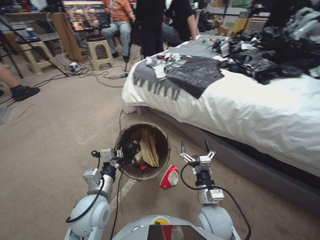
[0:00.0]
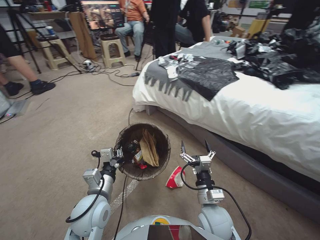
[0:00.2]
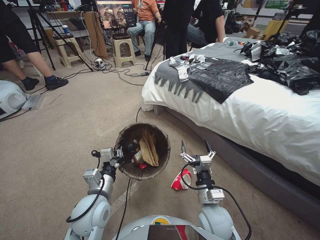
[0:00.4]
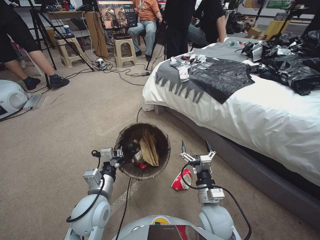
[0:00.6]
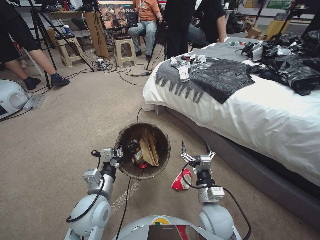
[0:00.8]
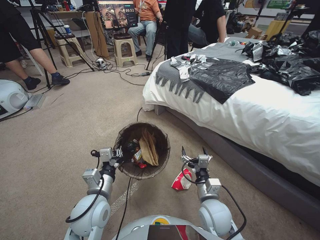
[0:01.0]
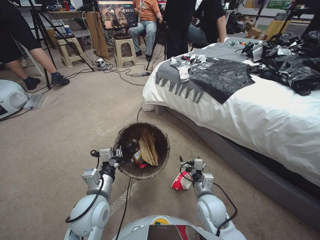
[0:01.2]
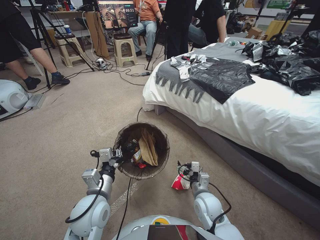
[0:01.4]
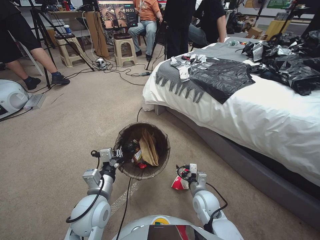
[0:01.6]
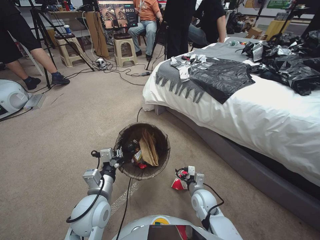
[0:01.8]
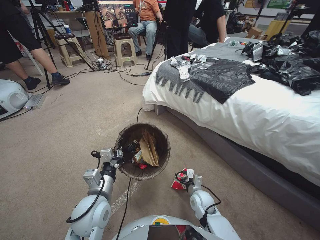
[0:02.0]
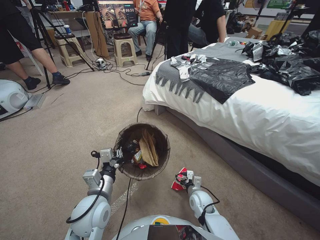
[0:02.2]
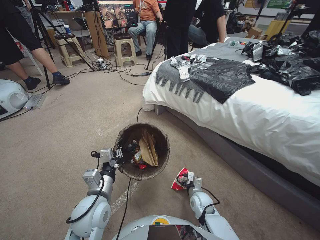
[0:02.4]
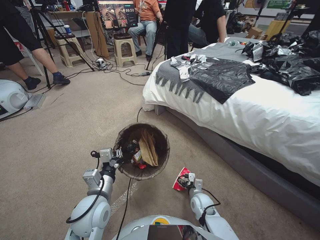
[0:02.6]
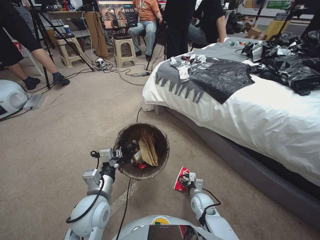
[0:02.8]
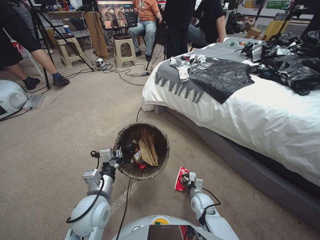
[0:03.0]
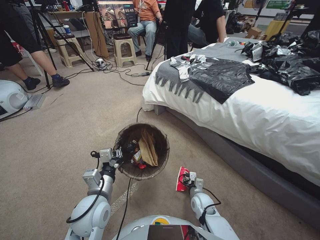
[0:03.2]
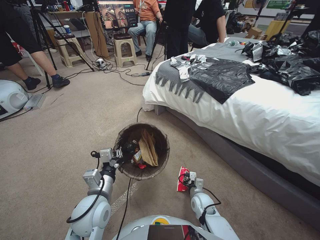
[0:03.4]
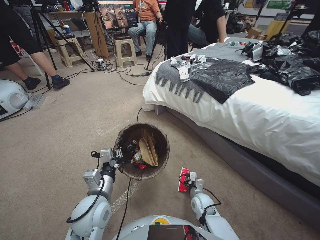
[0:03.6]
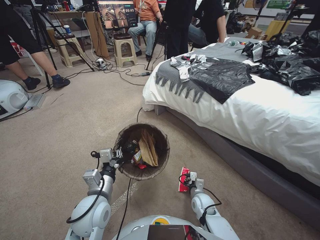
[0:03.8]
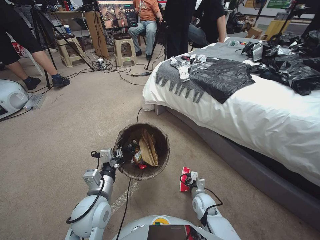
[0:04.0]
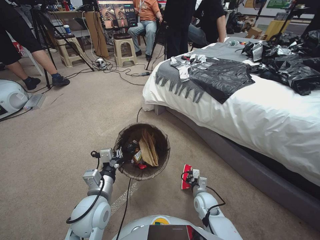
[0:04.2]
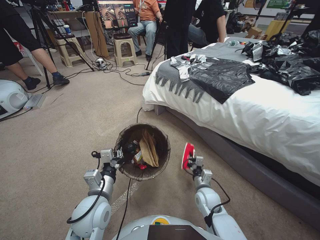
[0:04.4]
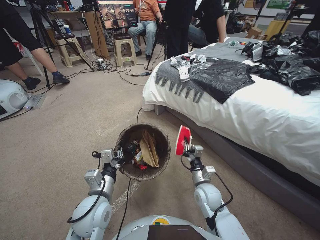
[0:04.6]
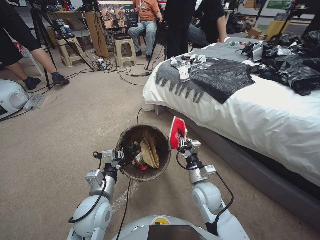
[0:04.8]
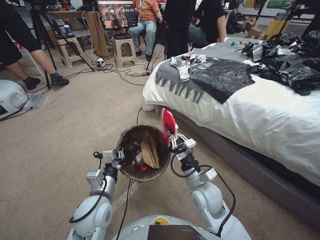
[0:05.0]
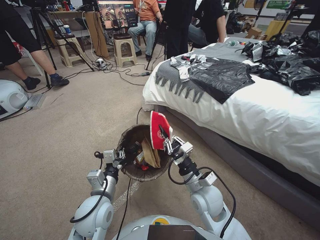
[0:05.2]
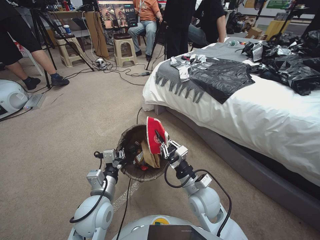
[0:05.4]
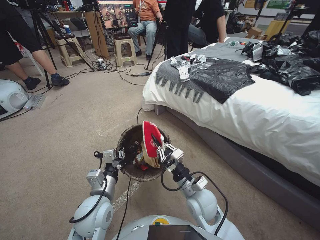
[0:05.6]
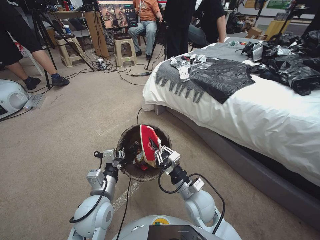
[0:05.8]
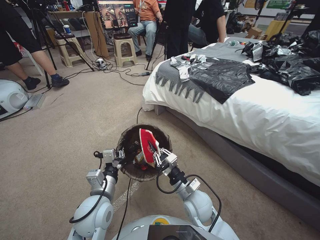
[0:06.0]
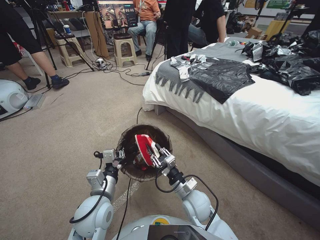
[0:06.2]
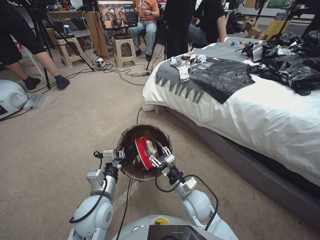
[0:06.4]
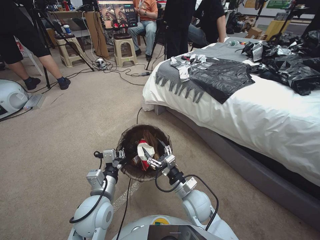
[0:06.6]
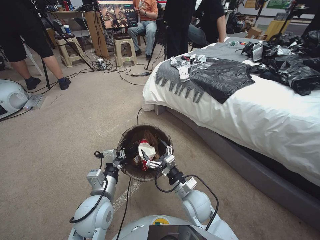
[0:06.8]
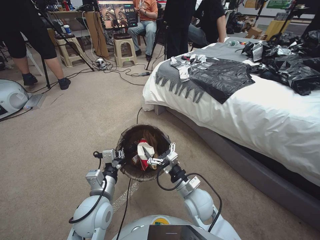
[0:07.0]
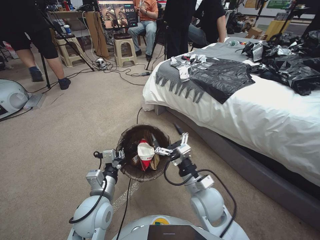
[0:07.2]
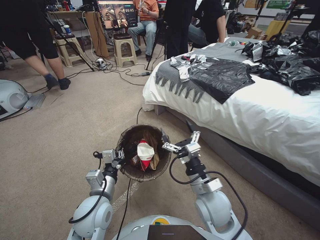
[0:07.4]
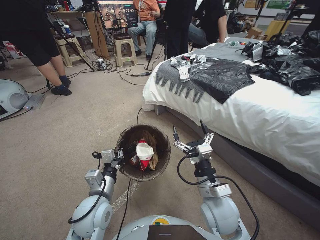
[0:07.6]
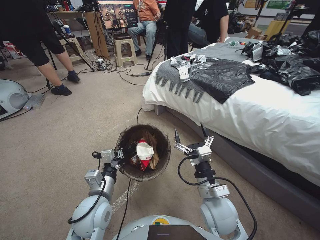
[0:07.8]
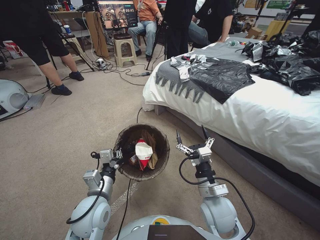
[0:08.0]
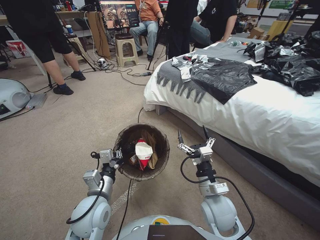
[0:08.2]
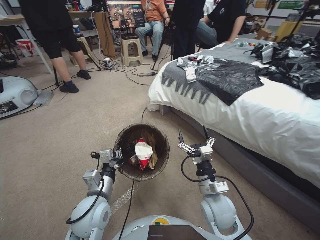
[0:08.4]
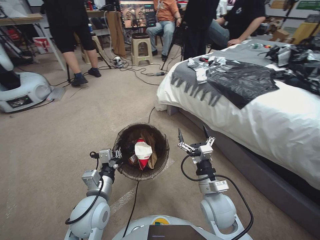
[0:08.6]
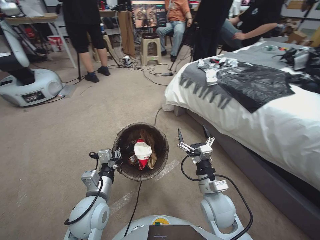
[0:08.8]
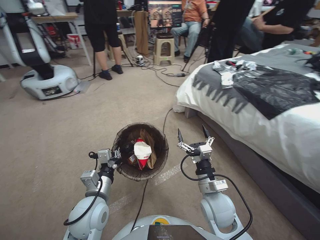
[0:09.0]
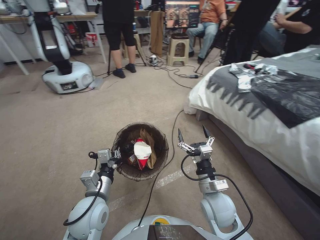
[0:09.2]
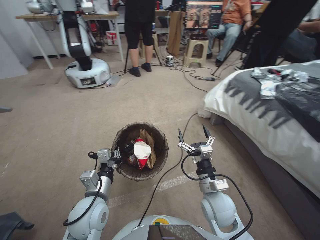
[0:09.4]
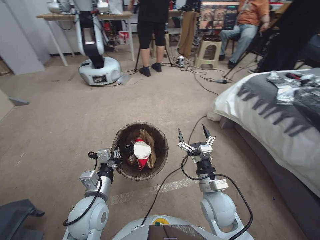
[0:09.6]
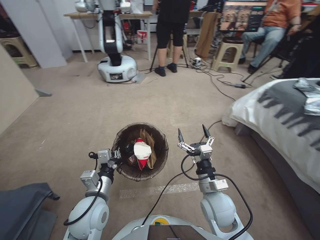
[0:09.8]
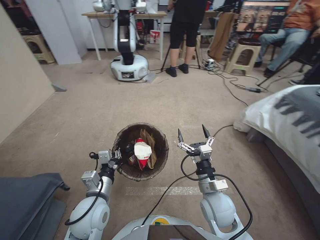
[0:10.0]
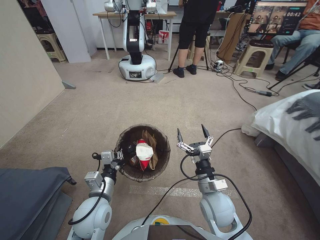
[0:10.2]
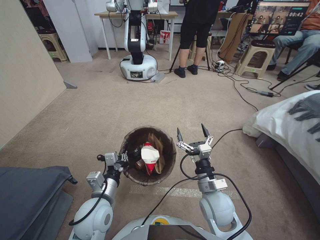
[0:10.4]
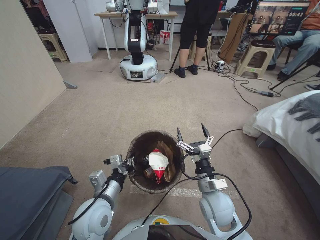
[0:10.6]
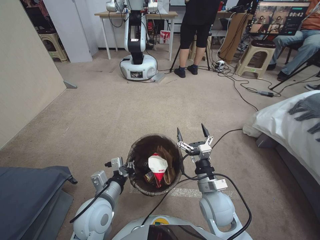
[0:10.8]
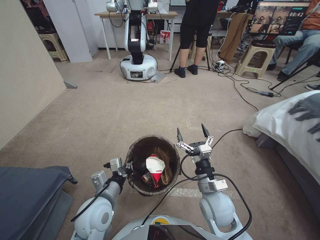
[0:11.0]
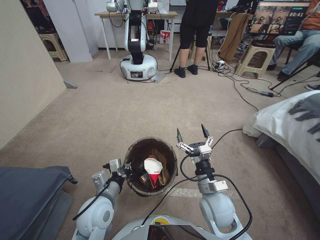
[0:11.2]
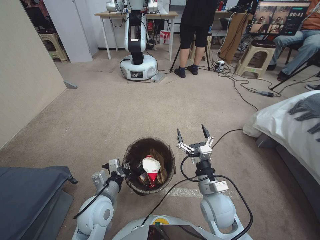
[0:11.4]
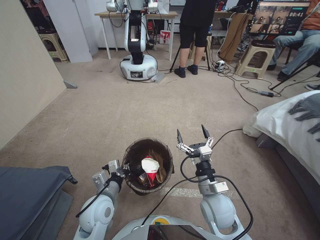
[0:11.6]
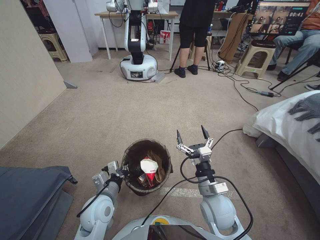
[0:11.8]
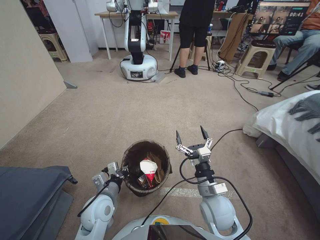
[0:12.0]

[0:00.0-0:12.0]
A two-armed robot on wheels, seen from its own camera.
Task of the whole recording: Pick up the trash bin, then pick up the garbage from the floor and place it into the trash bin.
0:00.0 to 0:01.6: The right gripper goes roughly 10 cm downward and forward.
0:01.6 to 0:03.0: The right gripper travels downward by about 10 cm, and closes up.
0:03.0 to 0:04.4: The right gripper closes its fingers.
0:04.4 to 0:06.0: The right gripper travels upward and to the left by approximately 15 cm.
0:06.0 to 0:07.6: The right gripper moves upward, roughly 10 cm, and opens its fingers.
0:10.4 to 0:12.0: The left gripper shifts by about 5 cm.

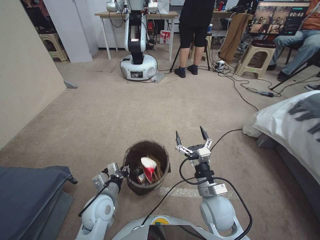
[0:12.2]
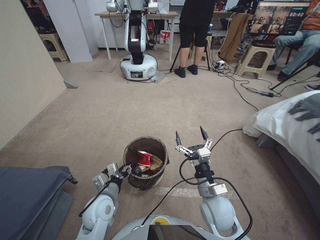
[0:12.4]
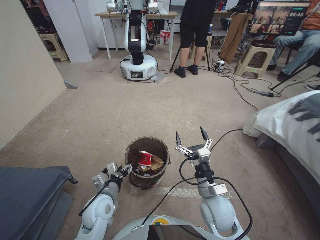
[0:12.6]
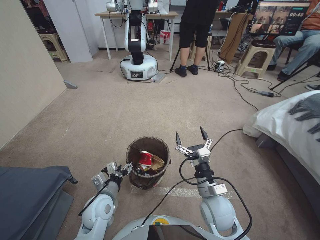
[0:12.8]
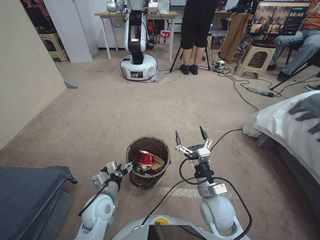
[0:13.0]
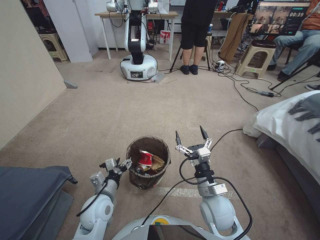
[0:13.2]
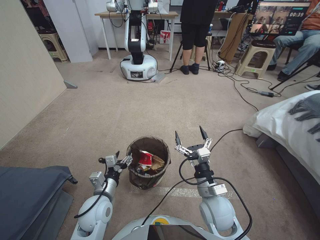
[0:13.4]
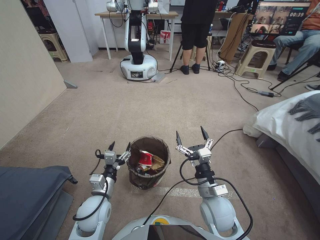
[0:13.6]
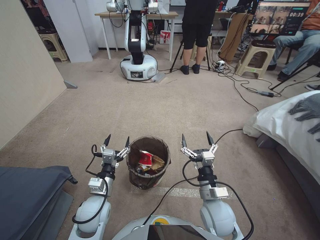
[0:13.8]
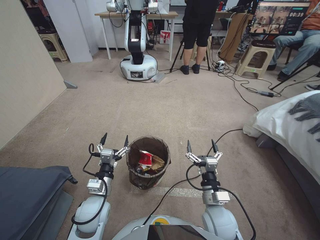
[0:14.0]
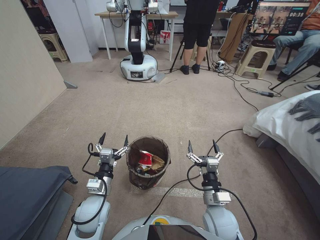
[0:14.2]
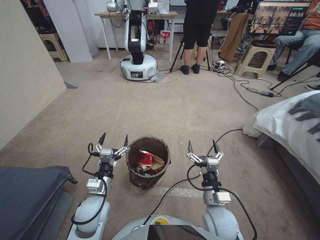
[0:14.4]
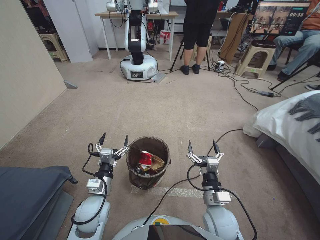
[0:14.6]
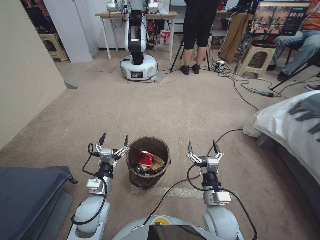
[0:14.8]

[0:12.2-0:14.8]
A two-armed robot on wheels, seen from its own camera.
Task of the whole recording: Pick up the trash bin, then pick up the garbage from the floor and place it into the trash bin.
0:12.2 to 0:13.4: The left gripper opens its fingers.

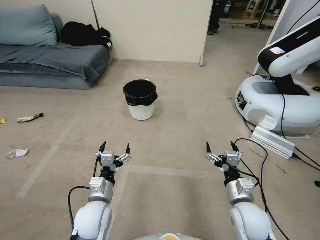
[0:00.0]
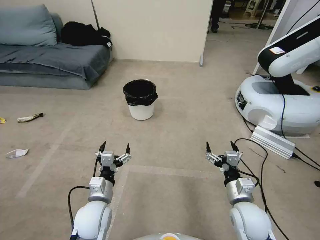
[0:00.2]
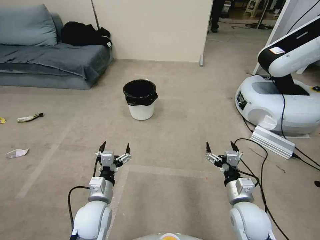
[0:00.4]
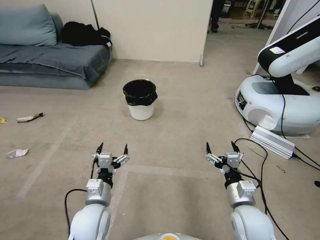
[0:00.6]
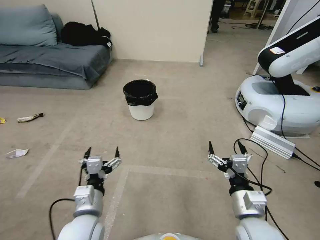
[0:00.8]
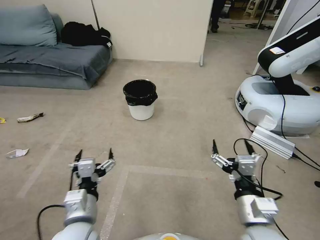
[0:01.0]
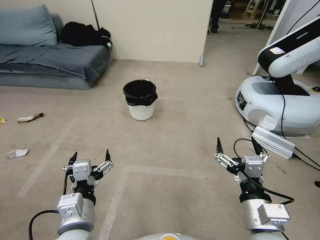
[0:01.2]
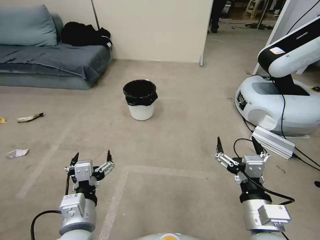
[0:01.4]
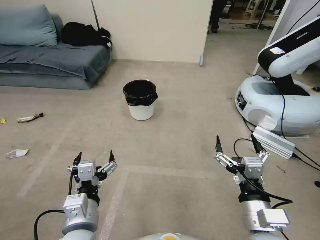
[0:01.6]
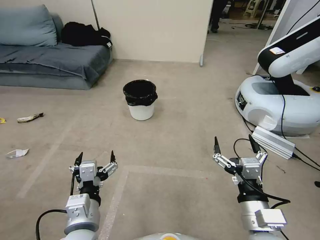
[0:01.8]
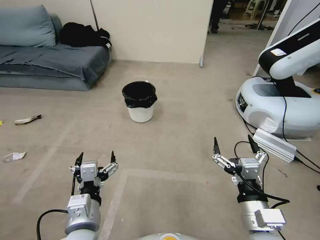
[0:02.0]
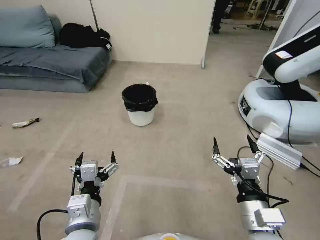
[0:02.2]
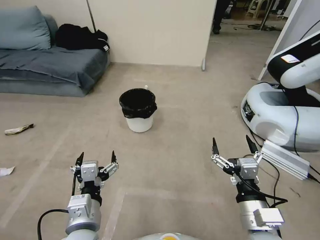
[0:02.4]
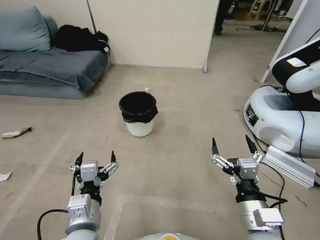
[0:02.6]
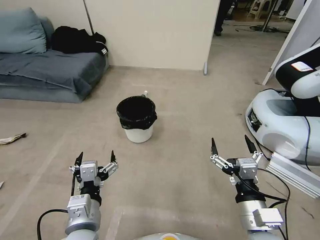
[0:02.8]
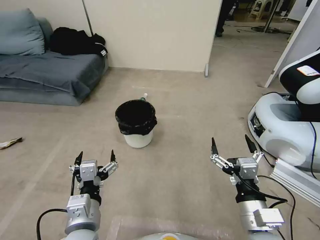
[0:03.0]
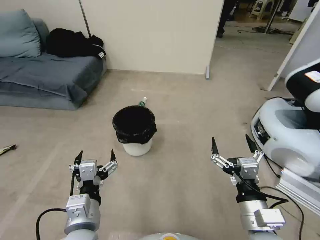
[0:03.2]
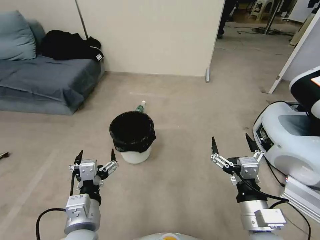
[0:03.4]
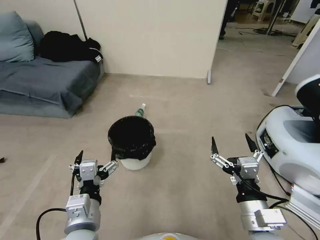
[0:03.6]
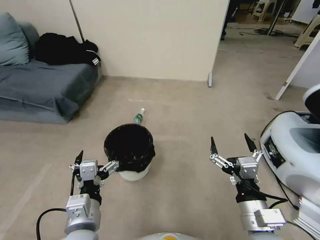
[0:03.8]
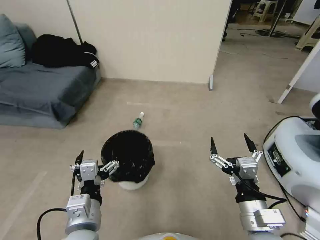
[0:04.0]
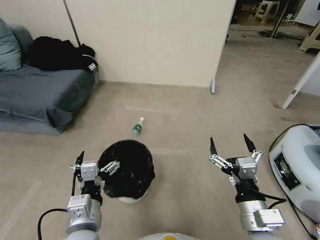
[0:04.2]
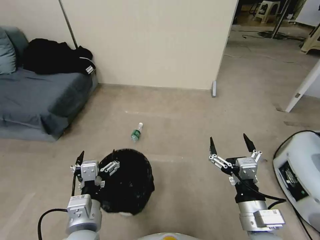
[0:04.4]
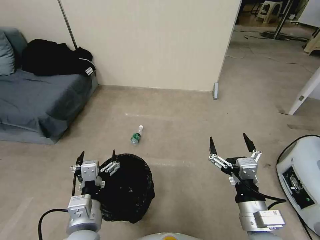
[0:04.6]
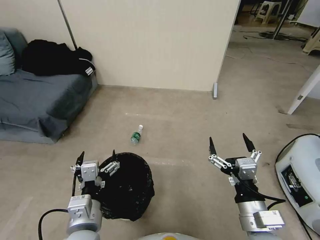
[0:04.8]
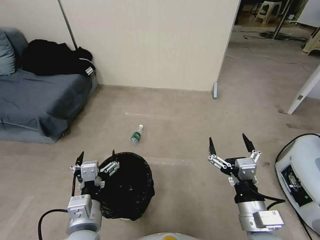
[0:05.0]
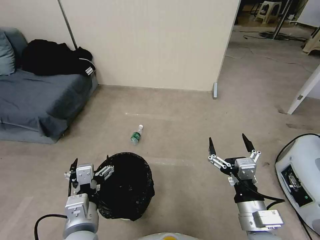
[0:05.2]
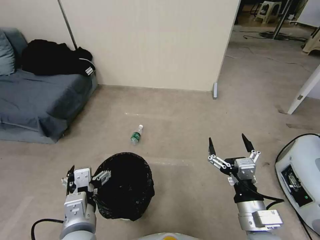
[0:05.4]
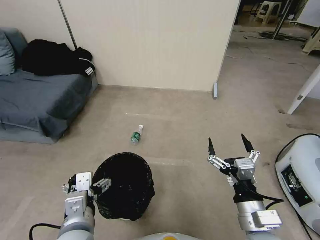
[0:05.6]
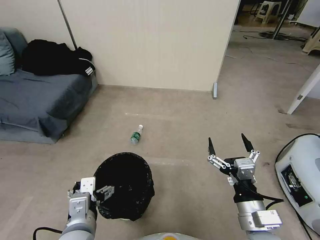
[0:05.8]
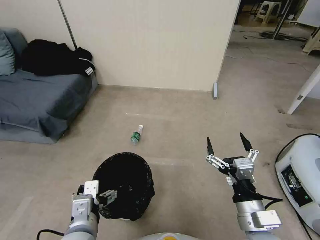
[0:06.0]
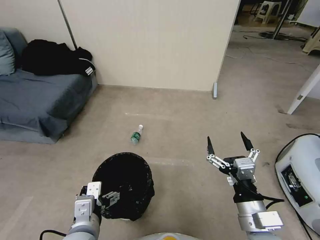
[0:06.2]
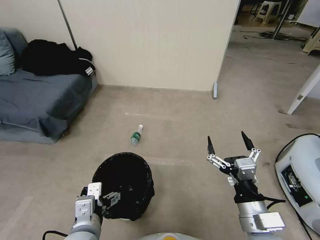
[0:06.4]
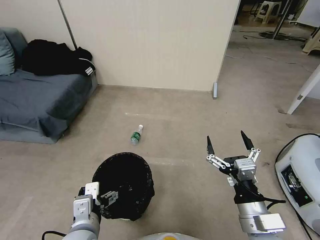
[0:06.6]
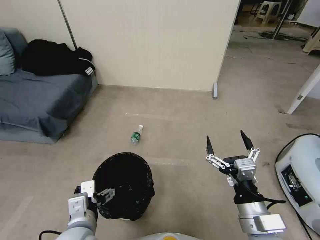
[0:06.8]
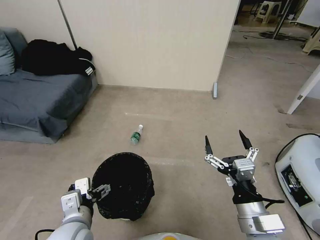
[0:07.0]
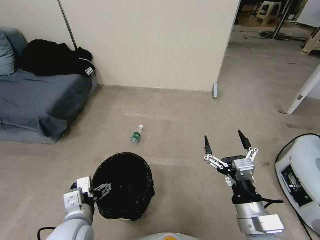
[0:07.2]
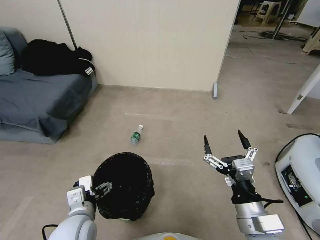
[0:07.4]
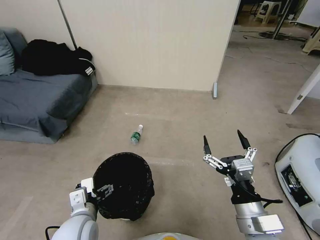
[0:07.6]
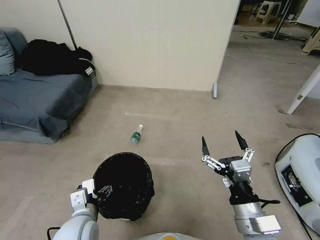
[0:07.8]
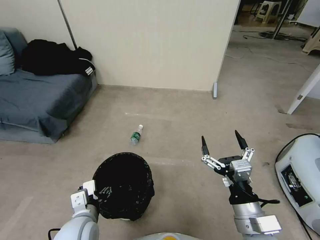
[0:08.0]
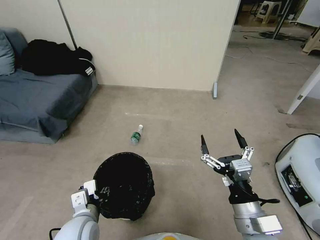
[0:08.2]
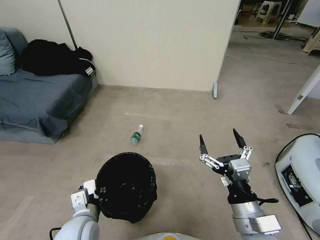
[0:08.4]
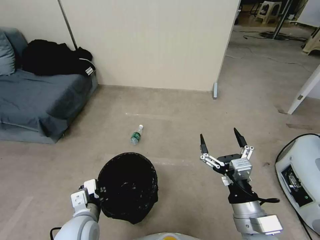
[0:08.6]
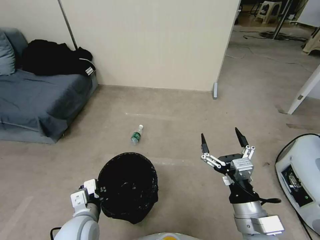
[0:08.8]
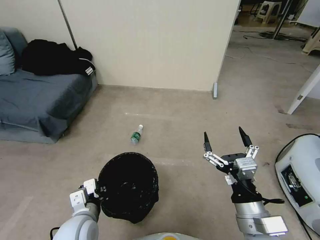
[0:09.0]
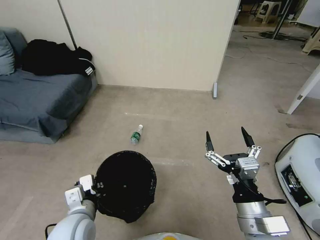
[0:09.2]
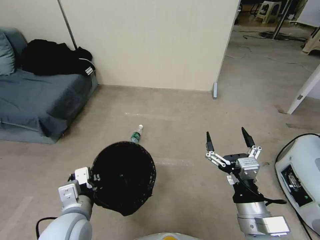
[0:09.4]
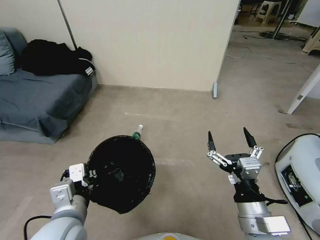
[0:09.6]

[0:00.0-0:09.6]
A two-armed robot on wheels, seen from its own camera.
Task of the whole recording: Pick up the trash bin, then pick up the garbage from the floor and place it into the trash bin.
0:06.4 to 0:08.0: The left gripper goes approximately 5 cm downward.
0:08.0 to 0:09.6: The left gripper moves upward, some 10 cm, and closes.
